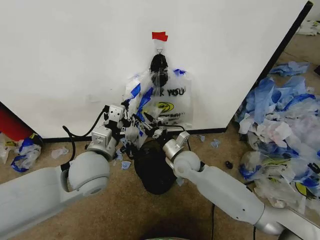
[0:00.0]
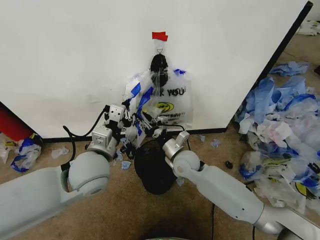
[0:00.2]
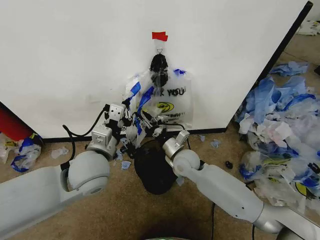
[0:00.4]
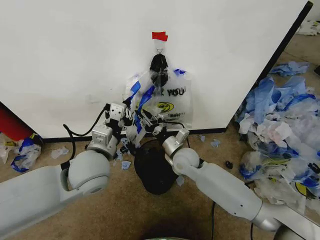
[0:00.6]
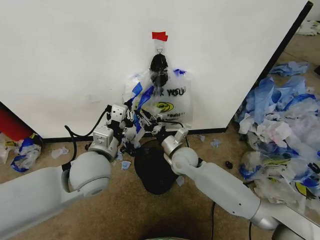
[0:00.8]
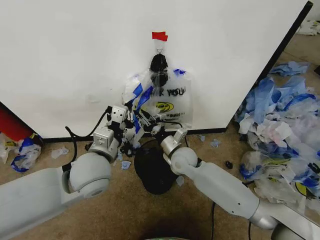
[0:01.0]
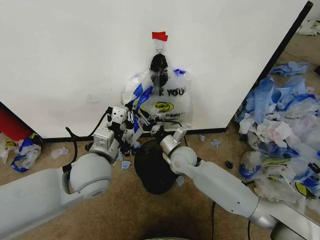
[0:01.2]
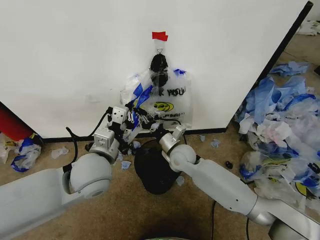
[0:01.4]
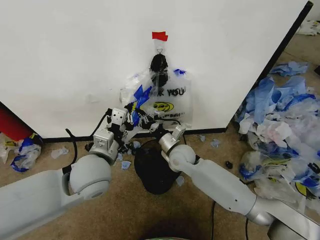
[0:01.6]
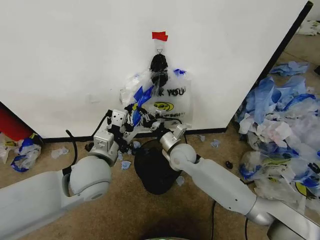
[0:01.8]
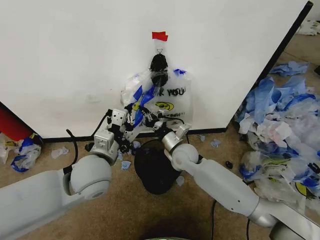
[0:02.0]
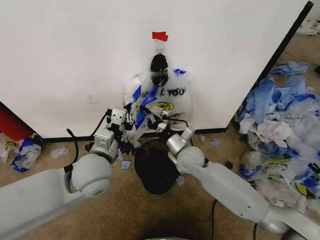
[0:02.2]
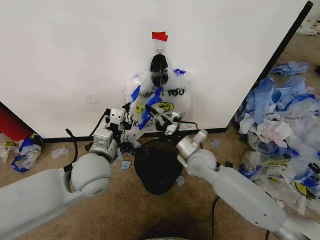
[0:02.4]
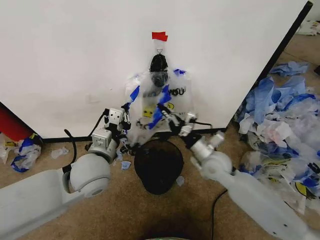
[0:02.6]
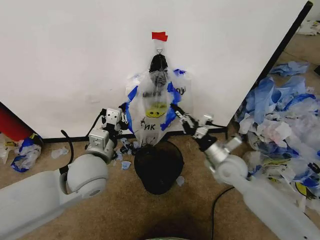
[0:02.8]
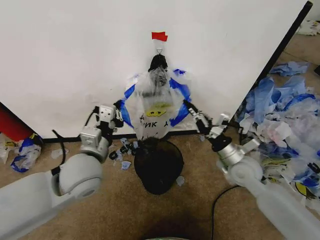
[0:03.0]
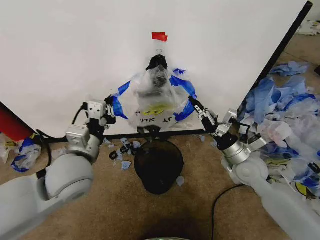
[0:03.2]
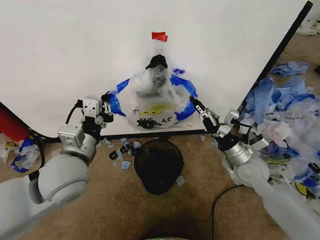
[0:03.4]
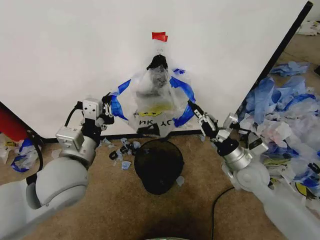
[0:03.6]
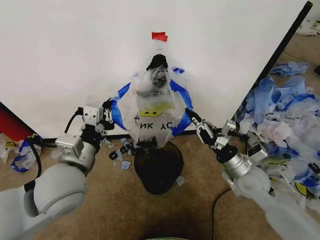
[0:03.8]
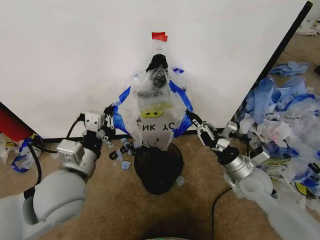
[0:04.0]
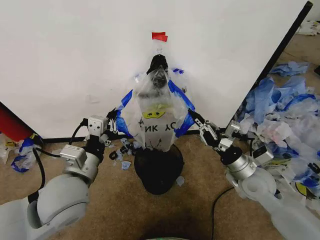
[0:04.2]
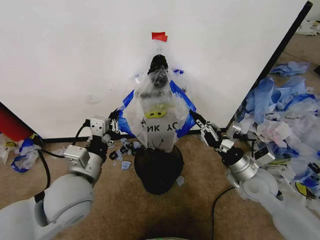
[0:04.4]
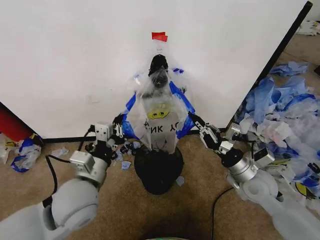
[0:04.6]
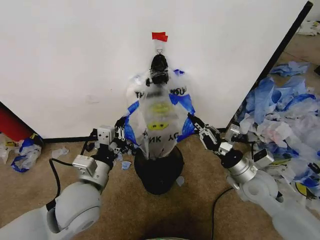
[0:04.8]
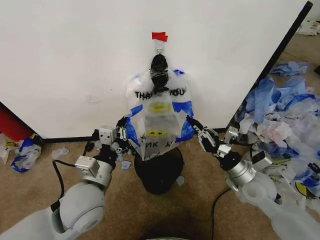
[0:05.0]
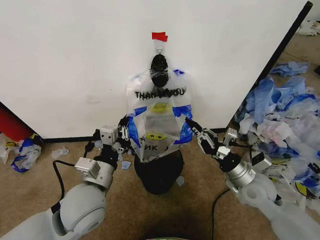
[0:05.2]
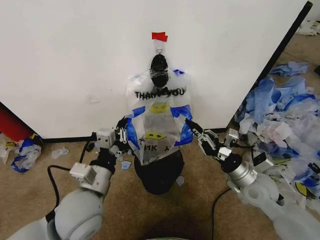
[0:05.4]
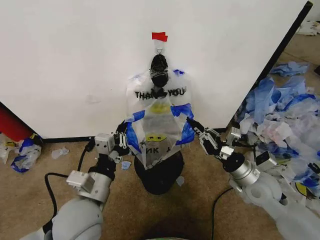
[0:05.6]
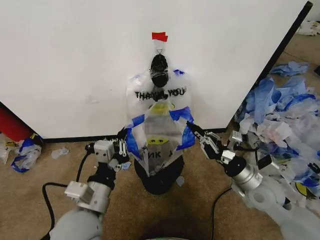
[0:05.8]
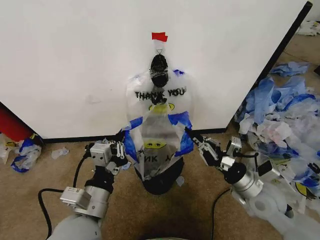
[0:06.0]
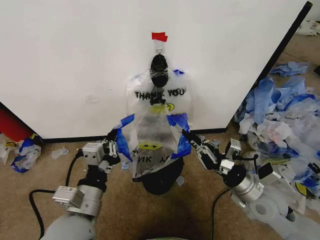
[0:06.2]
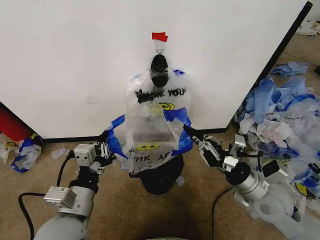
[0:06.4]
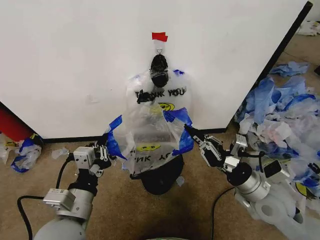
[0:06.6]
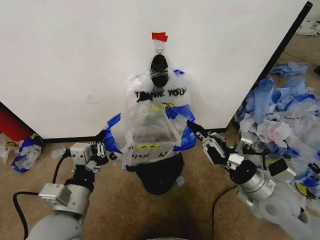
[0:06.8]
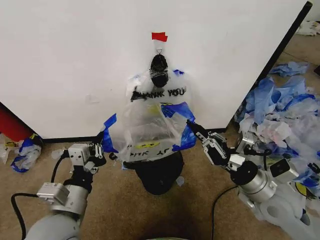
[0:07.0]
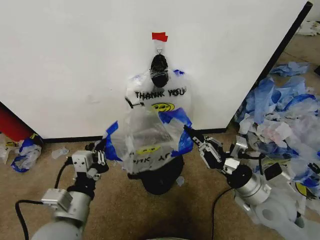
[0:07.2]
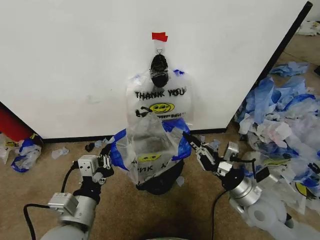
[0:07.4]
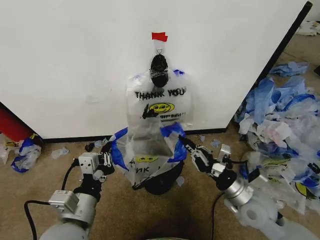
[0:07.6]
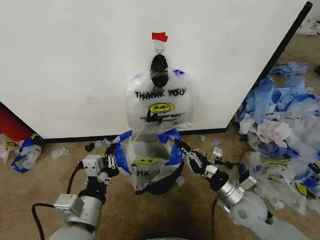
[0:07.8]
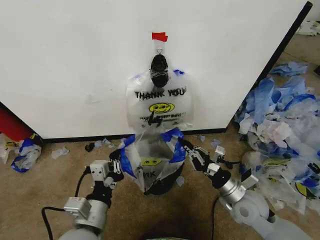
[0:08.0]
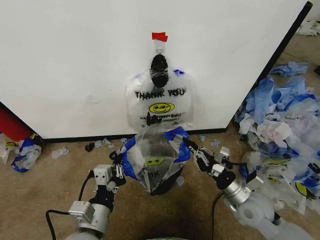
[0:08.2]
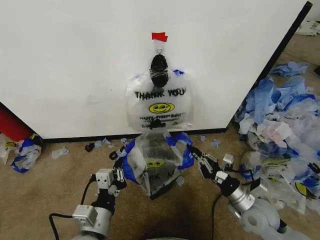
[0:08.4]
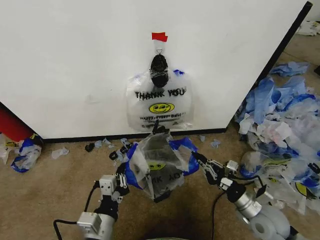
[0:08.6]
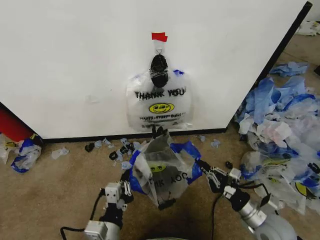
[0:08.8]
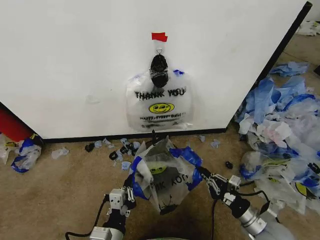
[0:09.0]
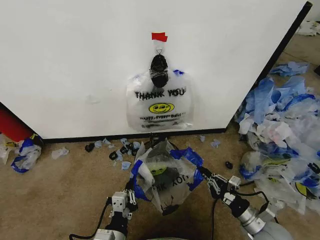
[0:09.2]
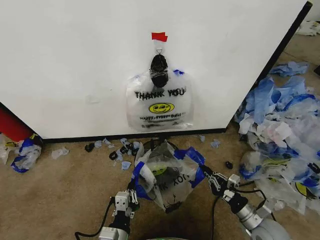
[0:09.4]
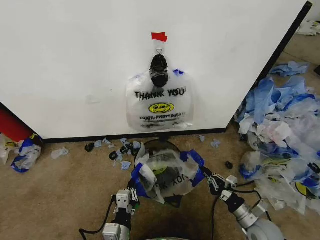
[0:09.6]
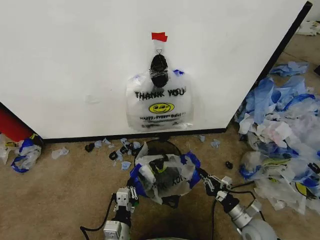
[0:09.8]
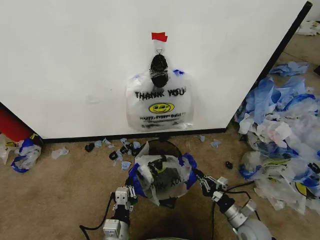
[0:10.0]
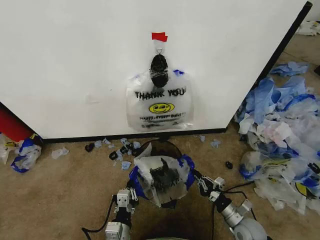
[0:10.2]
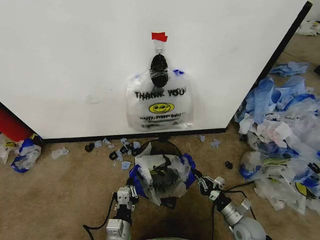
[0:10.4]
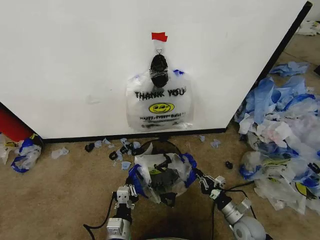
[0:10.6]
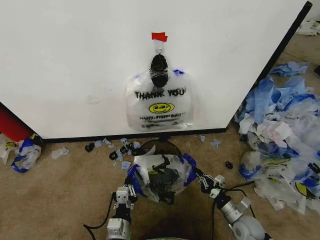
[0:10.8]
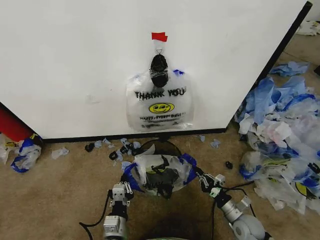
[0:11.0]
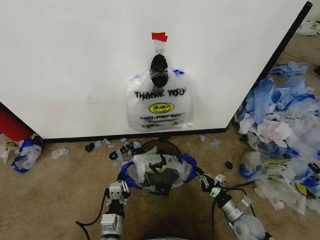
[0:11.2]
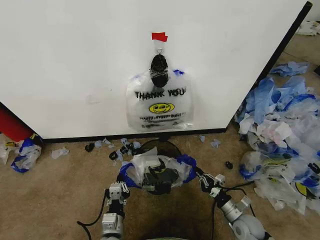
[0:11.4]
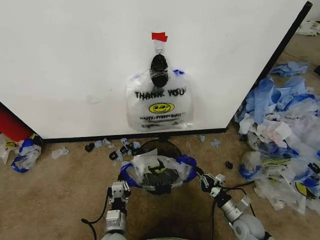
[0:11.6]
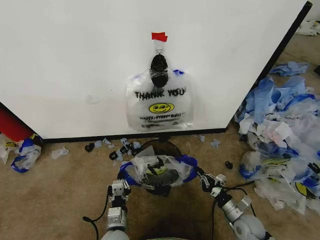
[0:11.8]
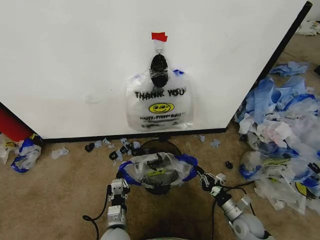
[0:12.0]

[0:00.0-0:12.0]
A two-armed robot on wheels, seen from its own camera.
Task of the whole recording: Pick up the garbage bag from the wall and place it over the trash bin.
0:00.0 to 0:01.6: The right gripper closes up.
0:01.6 to 0:03.0: The right gripper goes roughly 20 cm to the right and backward.
0:03.0 to 0:04.4: The right gripper moves roughly 5 cm. Meanwhile the left gripper travels backward by about 5 cm.
0:04.4 to 0:06.0: The left gripper shifts about 5 cm backward.
0:06.0 to 0:07.6: The grippers stay close to where they were, moving slightly.
0:07.6 to 0:09.0: The right gripper travels downward, backward and to the right by some 10 cm; the left gripper shifts about 10 cm downward and to the right.
0:09.0 to 0:10.4: Both grippers move downward, some 10 cm.
0:10.4 to 0:12.0: The left gripper shifts by some 5 cm.

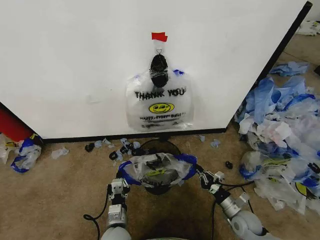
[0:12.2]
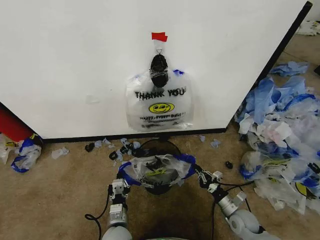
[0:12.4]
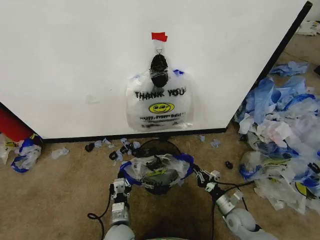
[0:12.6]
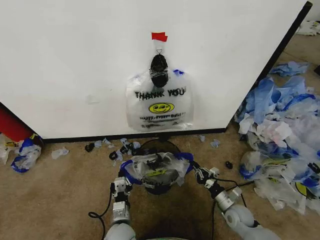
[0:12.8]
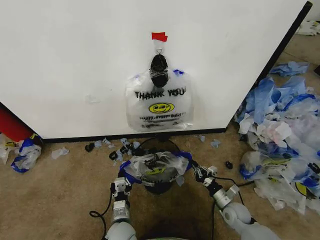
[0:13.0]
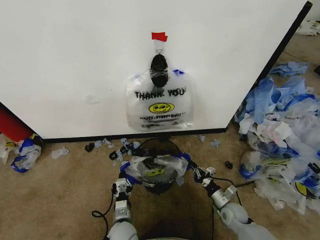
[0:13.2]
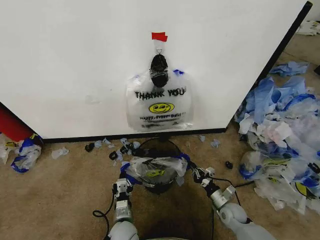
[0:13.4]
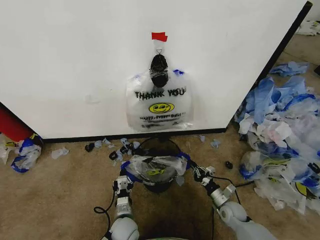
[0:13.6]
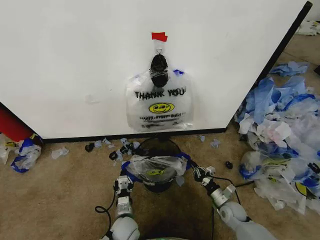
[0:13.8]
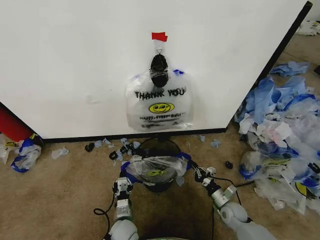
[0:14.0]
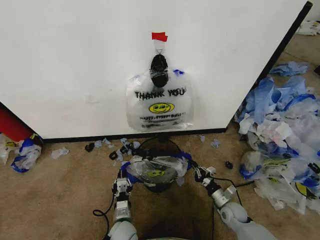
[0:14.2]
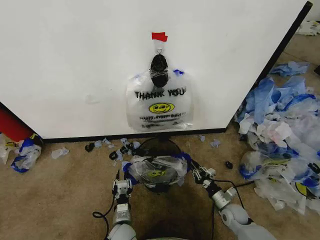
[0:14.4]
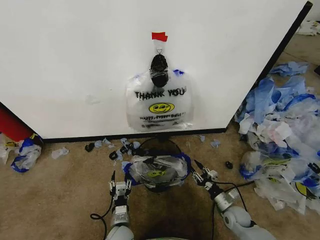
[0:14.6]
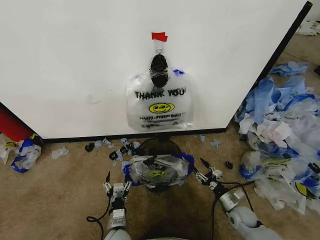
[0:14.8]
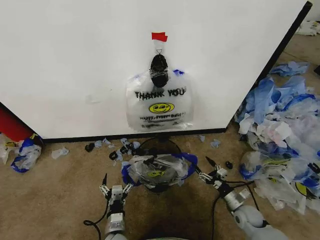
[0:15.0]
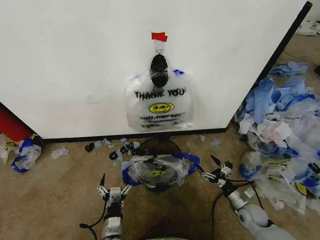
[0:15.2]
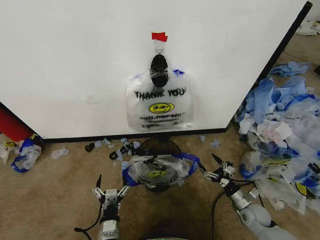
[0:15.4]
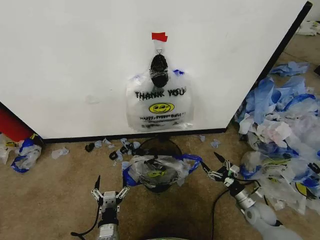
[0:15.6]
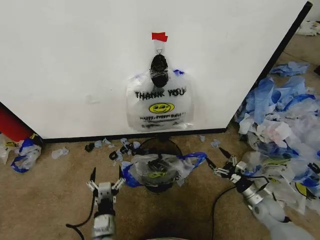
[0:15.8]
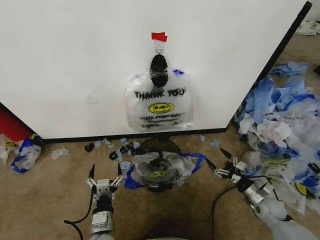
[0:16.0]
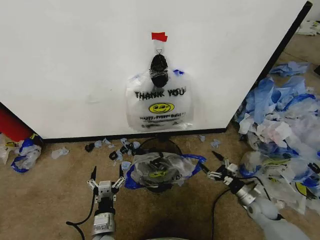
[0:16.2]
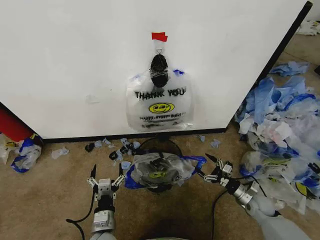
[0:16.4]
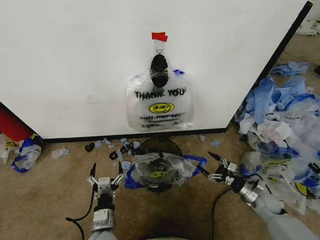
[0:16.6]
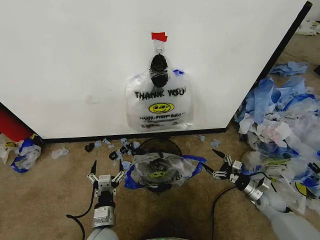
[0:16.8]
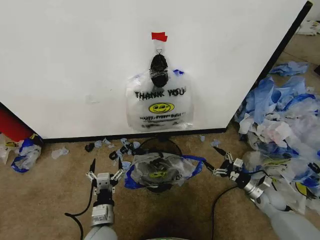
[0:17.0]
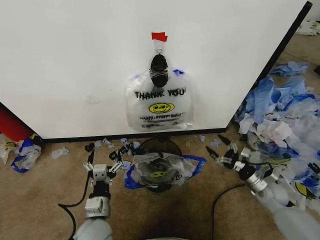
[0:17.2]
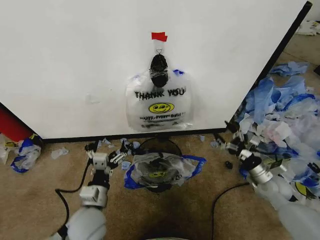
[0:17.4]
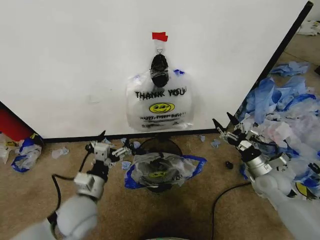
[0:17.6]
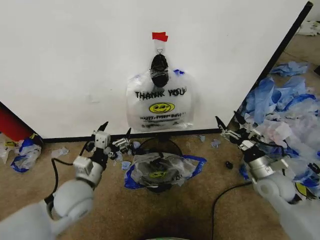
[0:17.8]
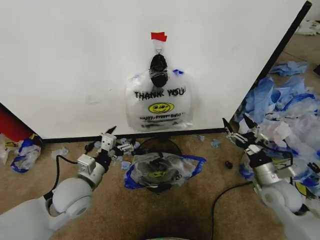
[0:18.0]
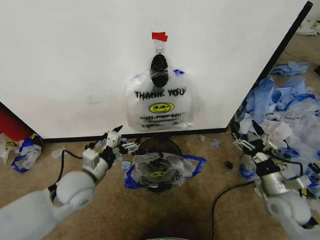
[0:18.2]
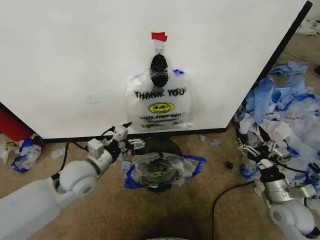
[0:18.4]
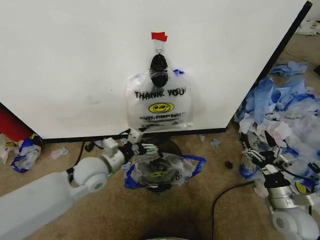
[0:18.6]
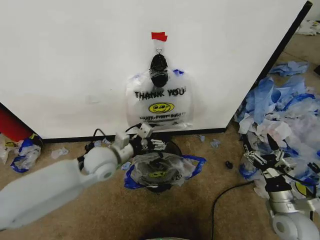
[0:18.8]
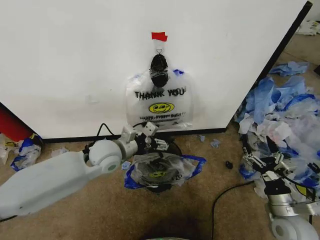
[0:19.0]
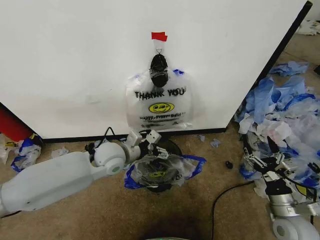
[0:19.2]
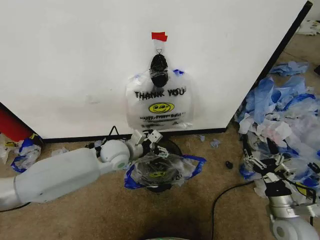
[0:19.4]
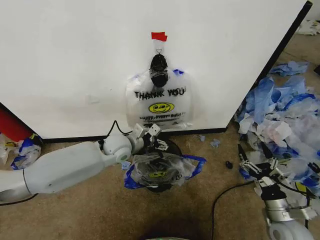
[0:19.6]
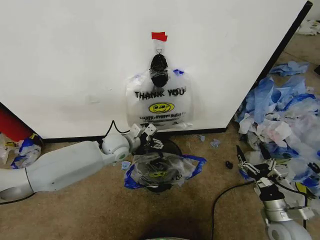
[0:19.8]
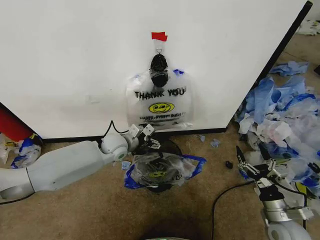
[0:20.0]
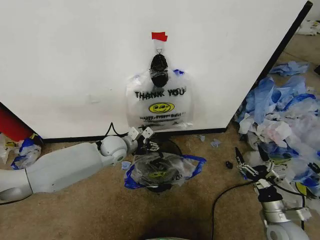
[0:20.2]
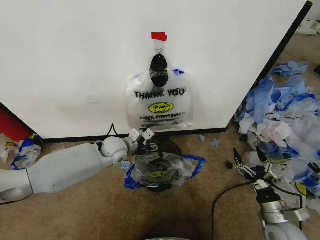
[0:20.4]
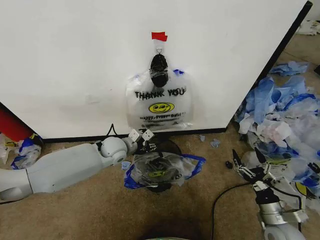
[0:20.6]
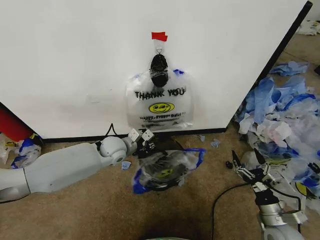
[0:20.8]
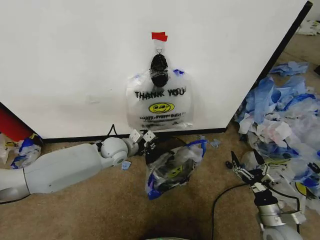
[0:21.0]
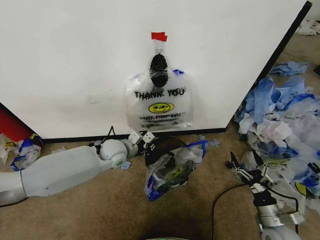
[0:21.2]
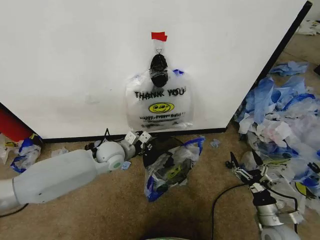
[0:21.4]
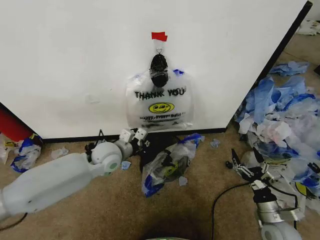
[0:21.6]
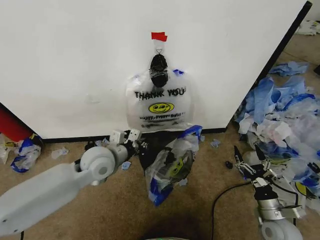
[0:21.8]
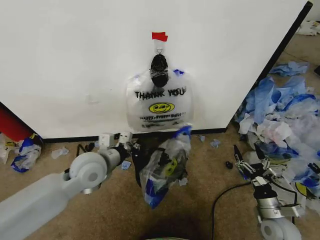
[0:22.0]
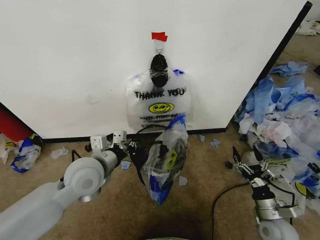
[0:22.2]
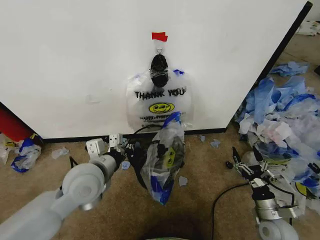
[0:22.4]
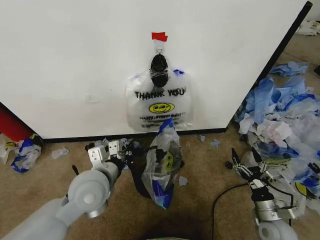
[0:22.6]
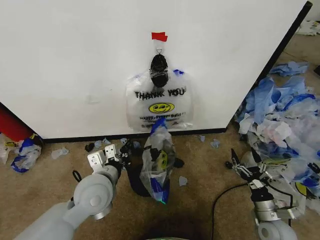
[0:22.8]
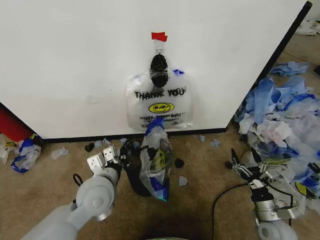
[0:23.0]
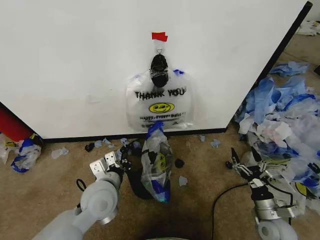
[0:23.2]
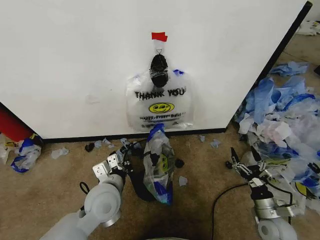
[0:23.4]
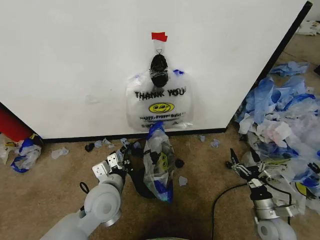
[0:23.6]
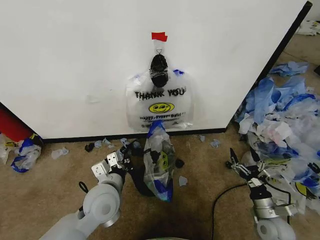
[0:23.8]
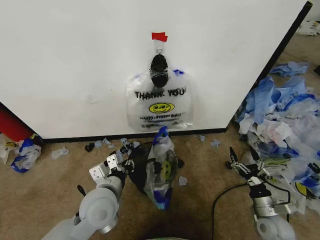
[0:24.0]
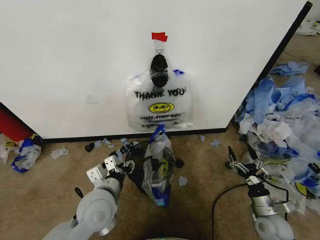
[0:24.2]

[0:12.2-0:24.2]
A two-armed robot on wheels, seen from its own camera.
Task of the whole recording: Pick up the garbage bag from the wall and place it over the trash bin.
0:12.2 to 0:13.8: The left gripper moves downward, about 5 cm; the right gripper ends up roughly 5 cm from where it was.
0:13.8 to 0:15.2: The left gripper shifts some 5 cm backward, and opens its fingers; the right gripper moves to the right, some 5 cm, and opens its fingers.
0:15.2 to 0:16.6: The right gripper is displaced to the right by some 5 cm; the left gripper travels upward by some 5 cm.
0:16.6 to 0:18.2: The left gripper shifts some 20 cm upward, forward and to the left. The right gripper shifts some 15 cm upward and backward.
0:18.2 to 0:19.8: The left gripper shifts roughly 15 cm forward and to the right. The right gripper heads backward and downward, covering approximately 10 cm.
0:19.8 to 0:21.2: The left gripper closes.
0:21.2 to 0:22.6: The left gripper goes about 20 cm backward and upward.
0:22.6 to 0:24.2: The left gripper is displaced downward by roughly 5 cm, and opens its fingers.
